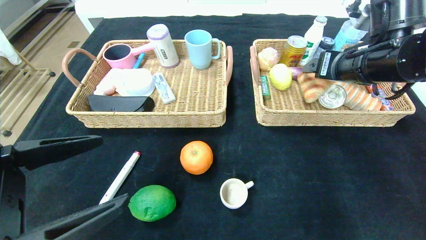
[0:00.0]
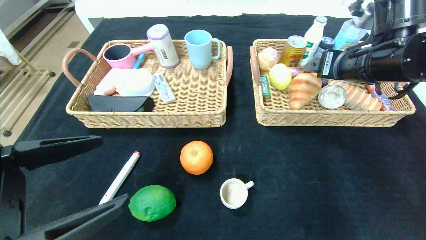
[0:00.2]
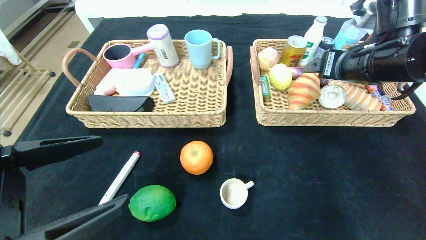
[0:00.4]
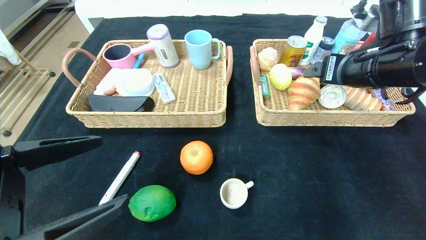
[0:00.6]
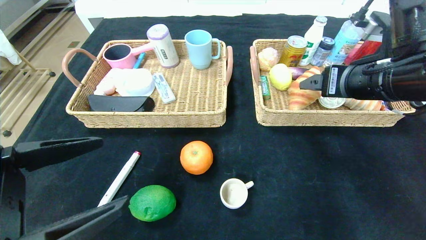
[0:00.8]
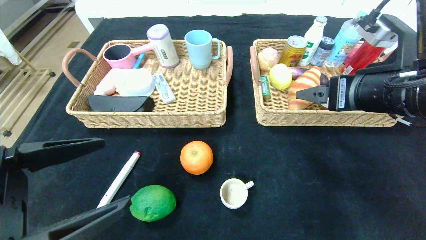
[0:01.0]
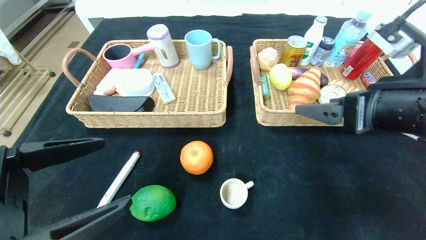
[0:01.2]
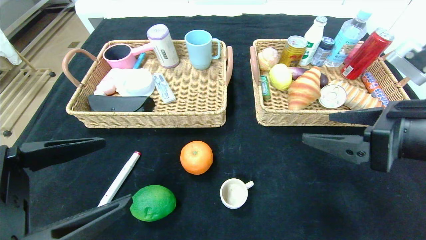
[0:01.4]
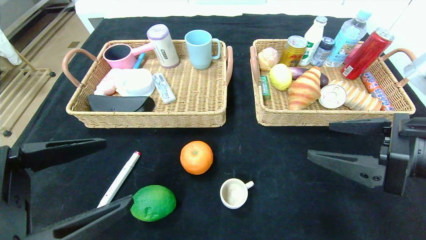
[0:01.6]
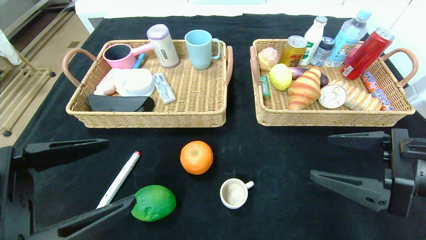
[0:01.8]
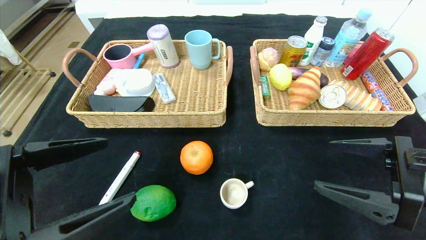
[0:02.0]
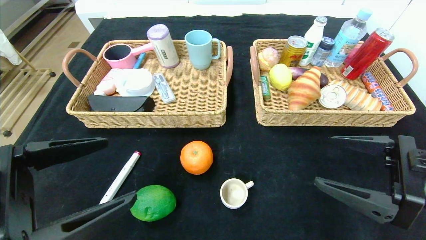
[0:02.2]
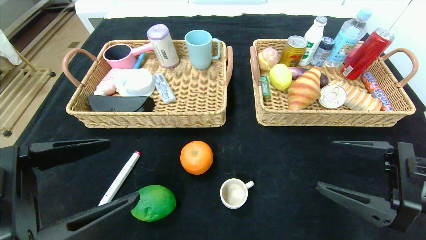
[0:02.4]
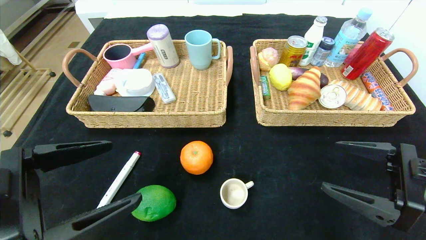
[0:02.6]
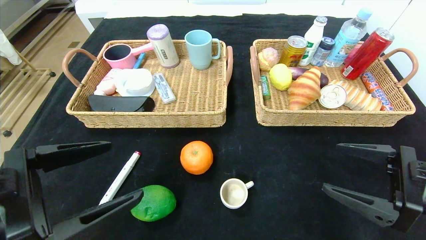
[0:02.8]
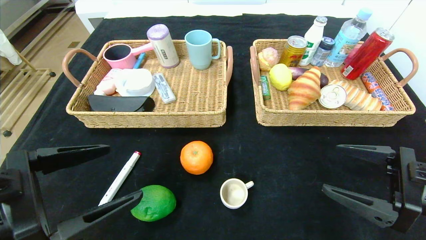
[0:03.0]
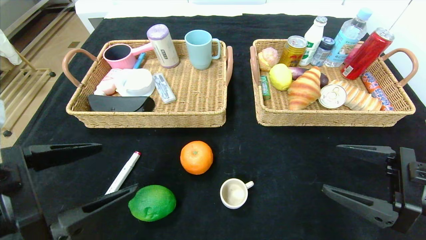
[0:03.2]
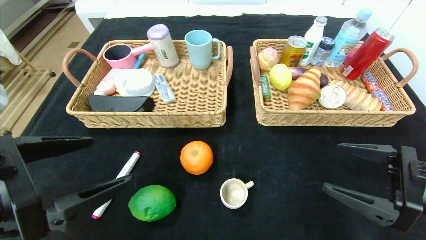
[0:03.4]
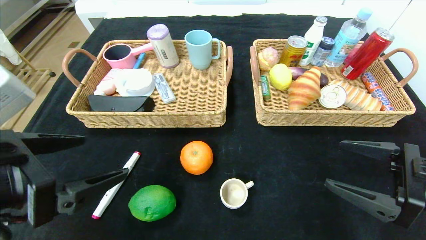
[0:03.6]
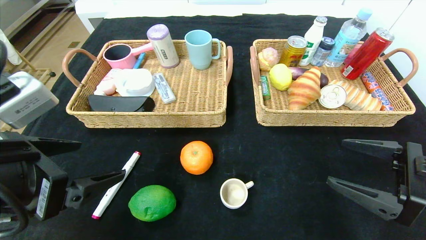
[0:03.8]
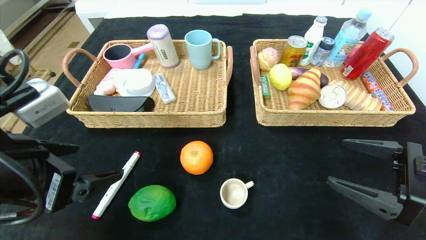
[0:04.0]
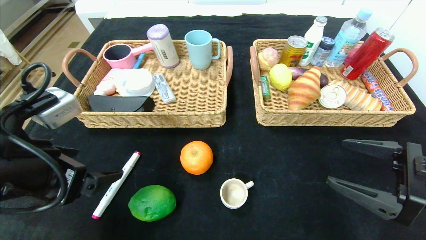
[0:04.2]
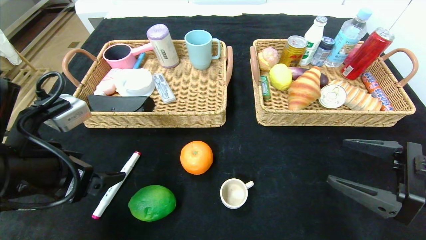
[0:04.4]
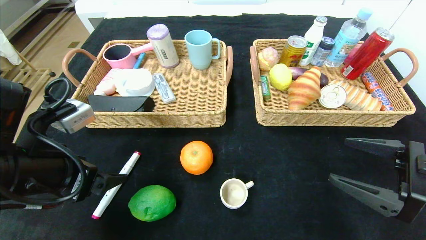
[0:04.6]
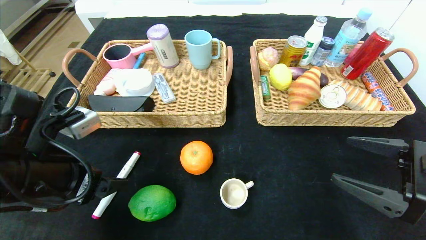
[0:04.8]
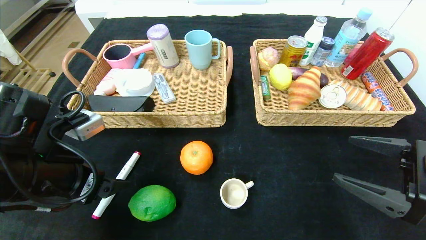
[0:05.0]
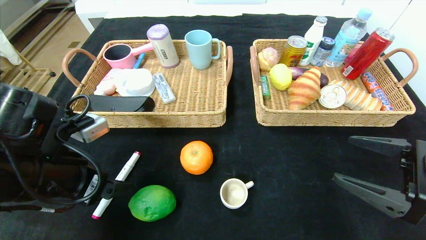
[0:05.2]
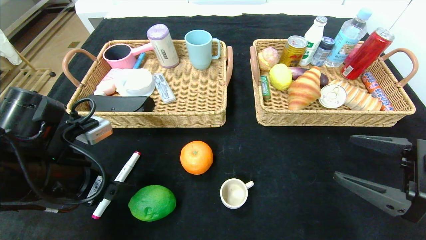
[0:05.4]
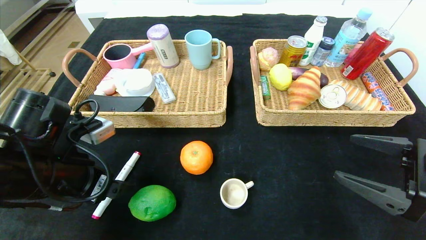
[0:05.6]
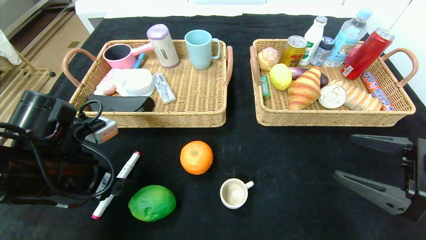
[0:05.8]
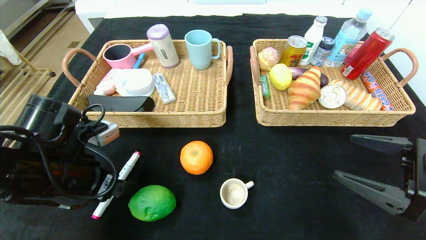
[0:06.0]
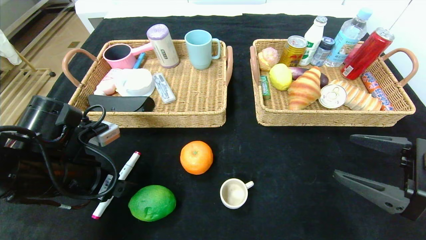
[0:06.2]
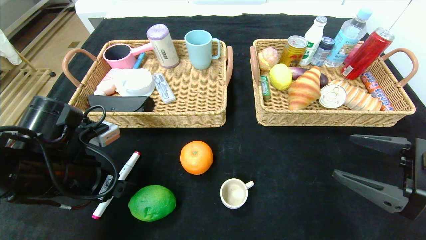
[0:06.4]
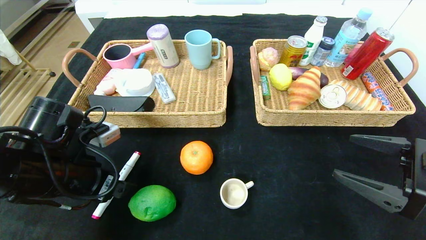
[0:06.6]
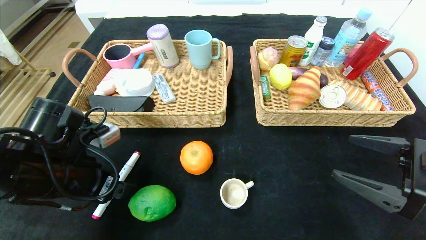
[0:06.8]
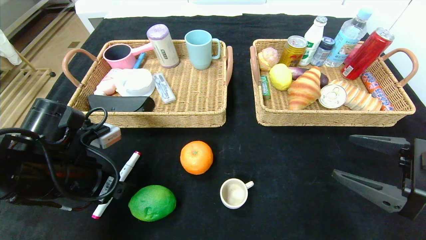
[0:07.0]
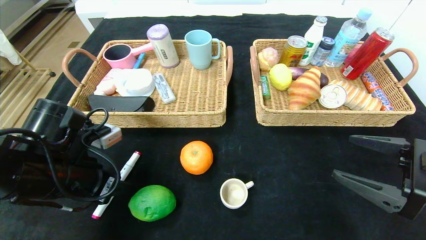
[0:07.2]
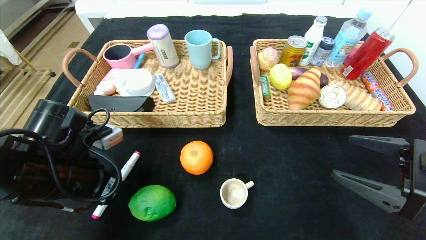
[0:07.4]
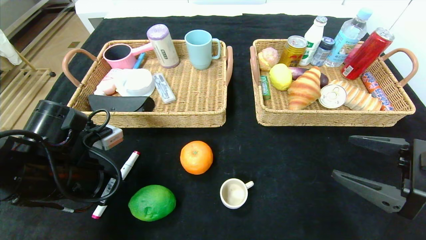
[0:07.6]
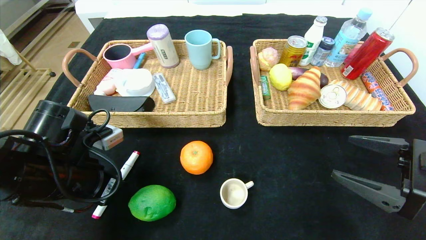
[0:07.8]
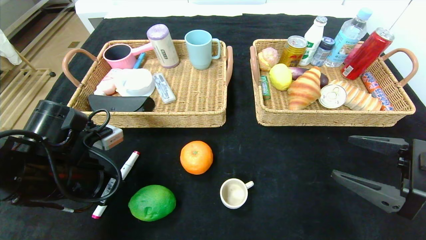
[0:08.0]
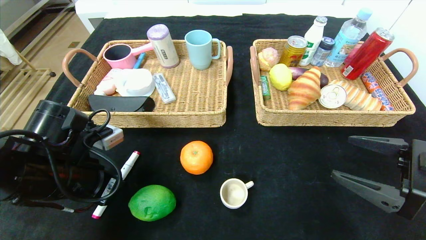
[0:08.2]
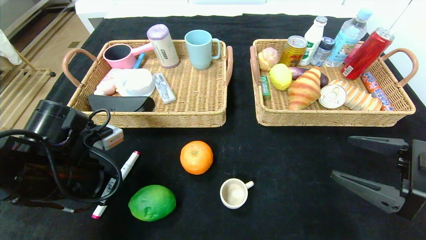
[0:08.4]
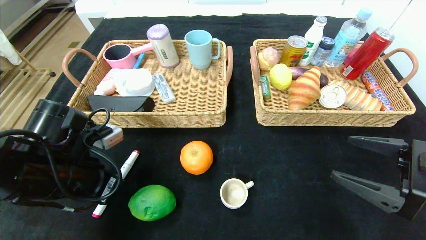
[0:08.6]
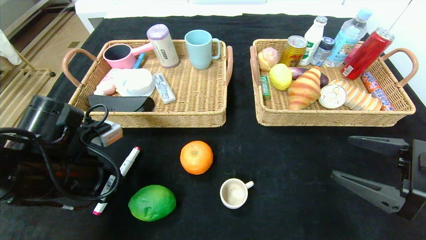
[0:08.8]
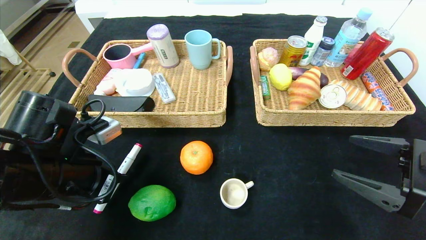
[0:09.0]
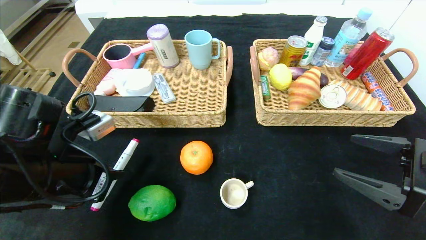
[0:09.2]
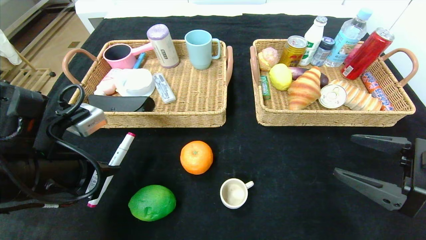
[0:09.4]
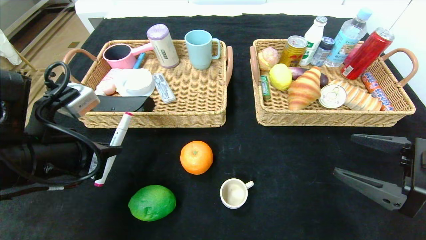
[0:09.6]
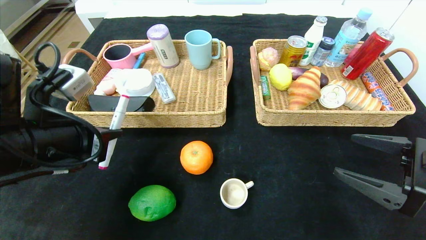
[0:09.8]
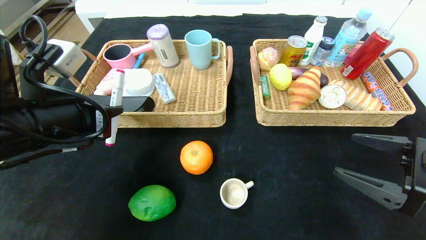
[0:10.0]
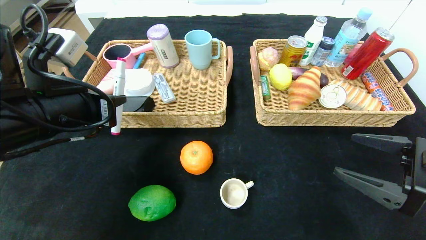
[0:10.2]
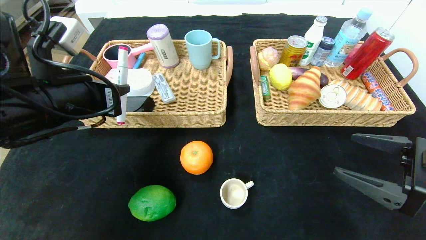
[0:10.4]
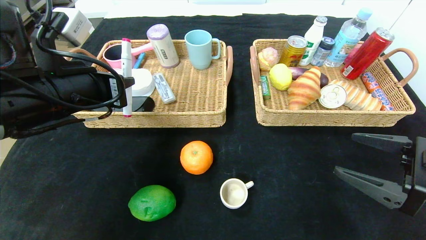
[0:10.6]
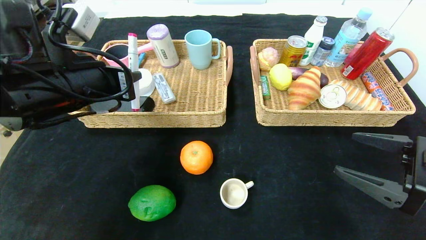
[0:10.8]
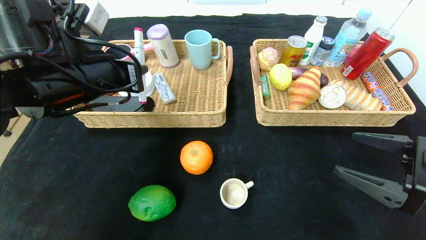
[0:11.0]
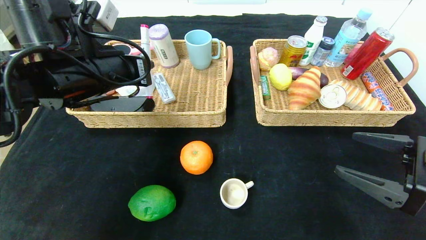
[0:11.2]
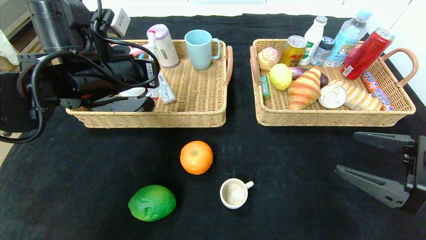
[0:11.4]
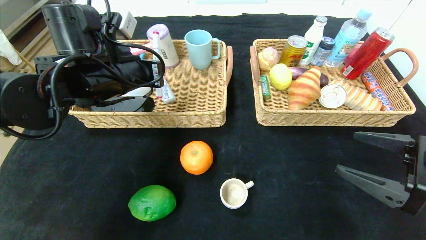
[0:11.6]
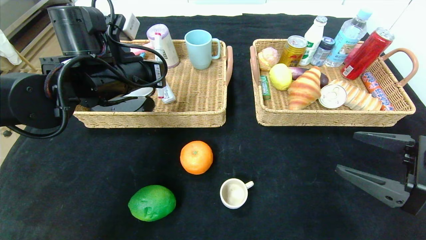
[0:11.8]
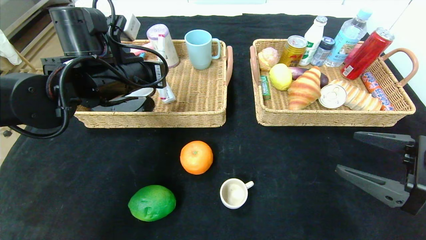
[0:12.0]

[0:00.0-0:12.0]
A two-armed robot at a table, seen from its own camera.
0:00.0 to 0:01.6: The right gripper shifts approximately 15 cm backward.
0:01.6 to 0:03.0: The right gripper goes some 5 cm downward.
0:03.0 to 0:04.4: The left gripper shifts roughly 5 cm forward.
0:04.4 to 0:06.0: The left gripper shifts by about 5 cm.
0:06.0 to 0:07.6: The left gripper closes up.
0:07.6 to 0:09.0: The grippers move only a little.
0:09.0 to 0:10.4: The left gripper shifts some 10 cm upward.
0:10.4 to 0:12.0: The left gripper is displaced forward by approximately 10 cm.

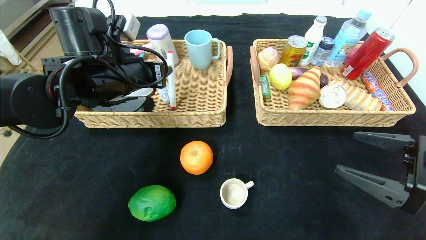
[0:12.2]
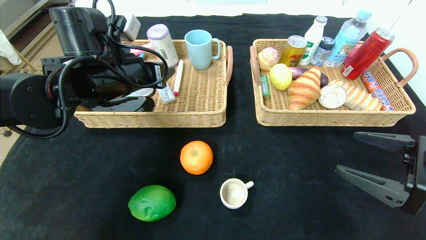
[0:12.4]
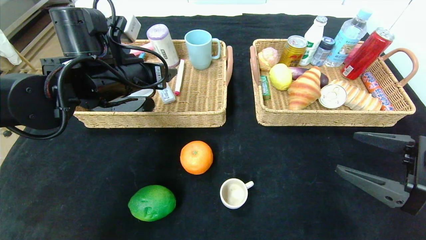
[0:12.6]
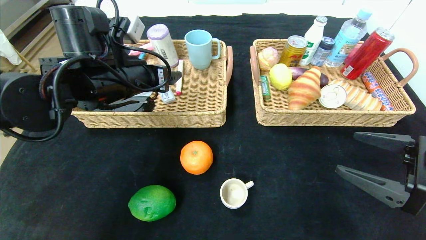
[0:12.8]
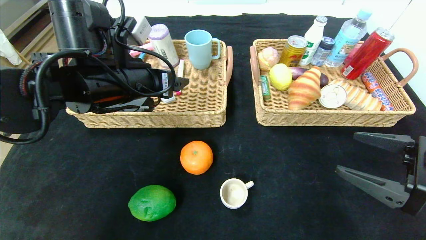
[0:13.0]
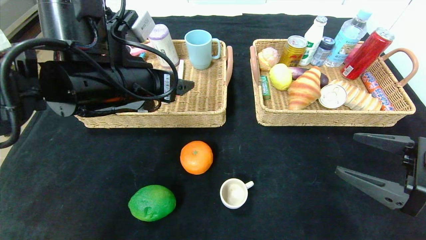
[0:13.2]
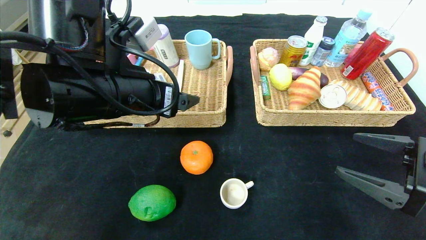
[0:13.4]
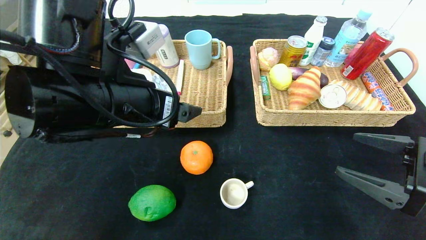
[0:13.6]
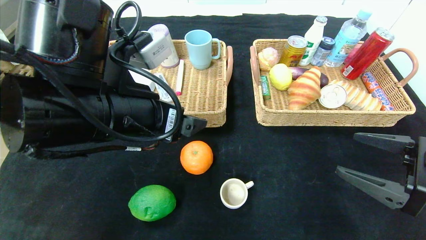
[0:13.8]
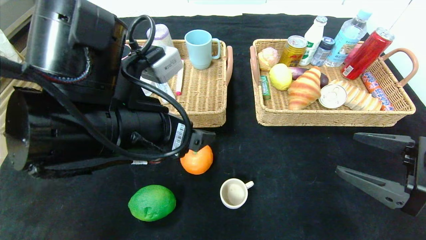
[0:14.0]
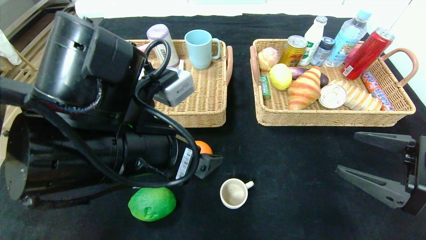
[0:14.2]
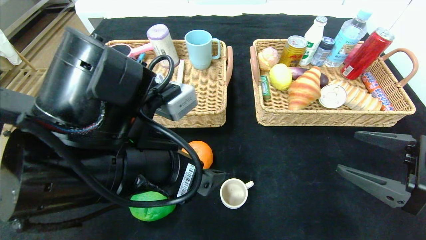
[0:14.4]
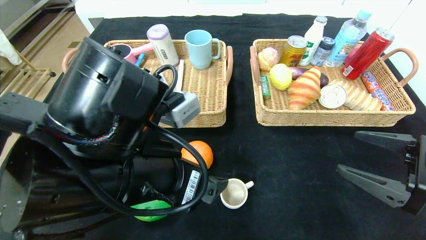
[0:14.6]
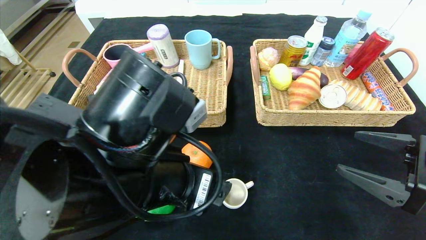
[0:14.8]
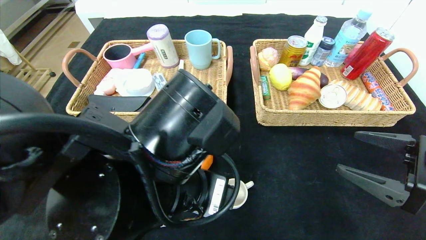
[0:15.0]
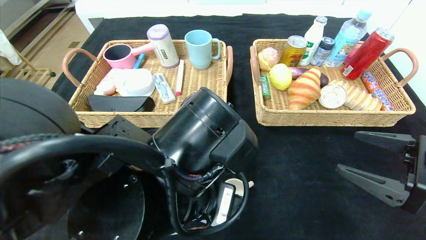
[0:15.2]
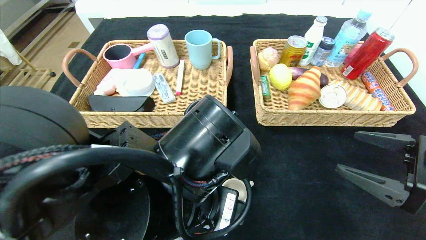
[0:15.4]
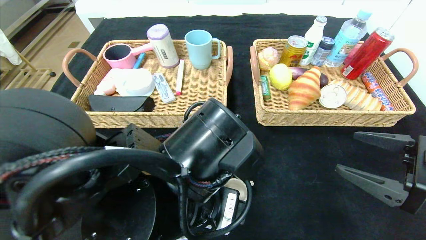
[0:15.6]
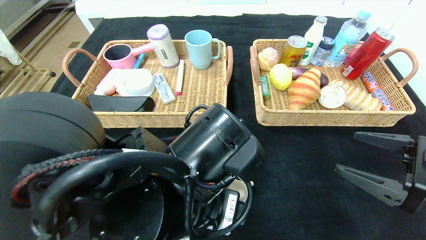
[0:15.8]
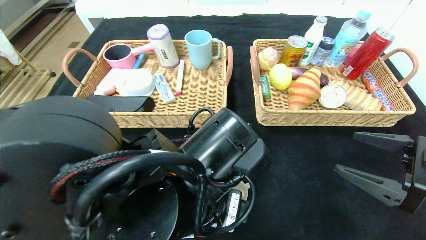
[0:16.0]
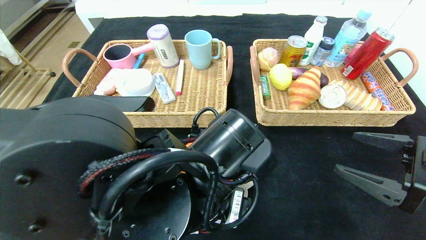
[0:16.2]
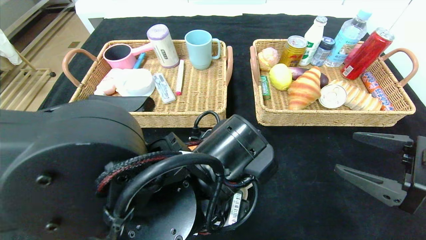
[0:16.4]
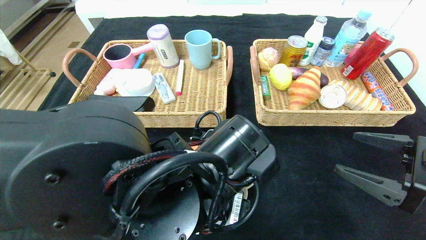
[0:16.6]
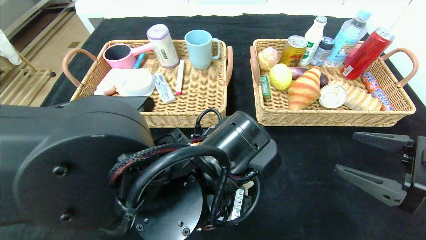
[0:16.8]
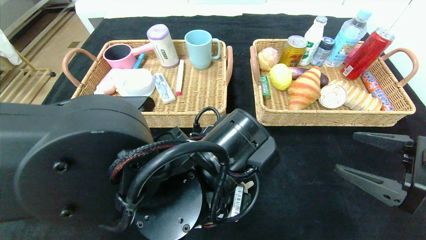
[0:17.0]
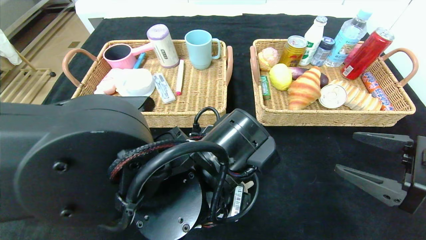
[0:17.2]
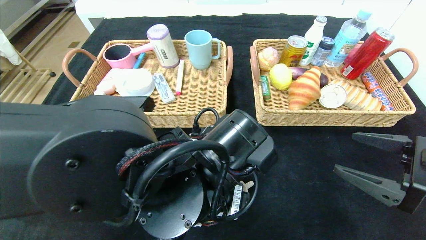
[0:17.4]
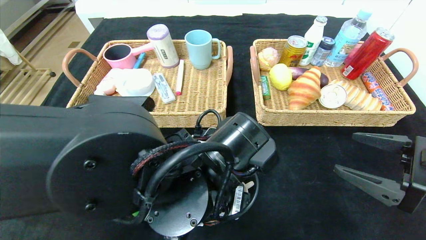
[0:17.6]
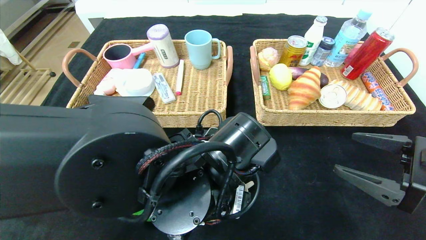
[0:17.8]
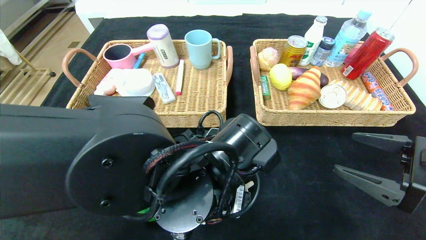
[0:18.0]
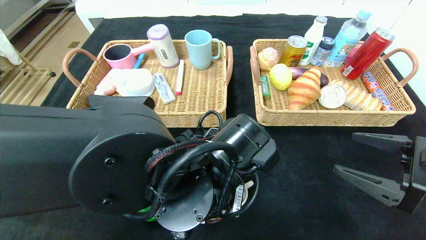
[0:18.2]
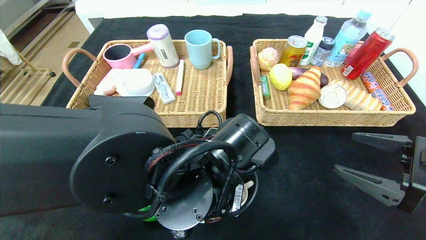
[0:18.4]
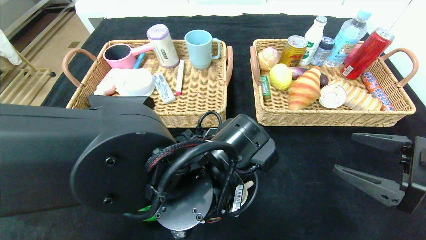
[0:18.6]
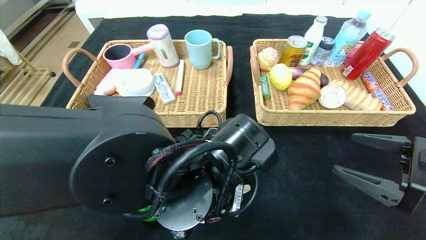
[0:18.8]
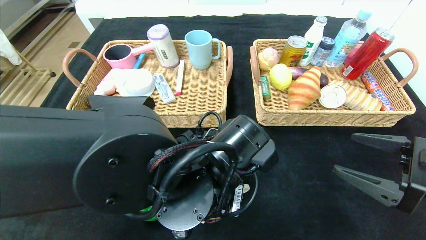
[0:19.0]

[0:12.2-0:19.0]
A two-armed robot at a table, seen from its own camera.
0:12.2 to 0:13.6: The left gripper goes some 10 cm backward, and opens.
0:13.6 to 0:15.0: The left gripper travels to the right, backward and downward by approximately 10 cm.
0:16.2 to 0:17.6: The grippers stay close to where they were, moving slightly.
0:17.6 to 0:19.0: The left gripper closes its fingers.
